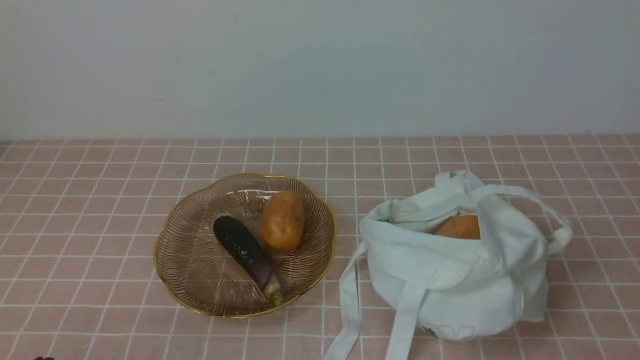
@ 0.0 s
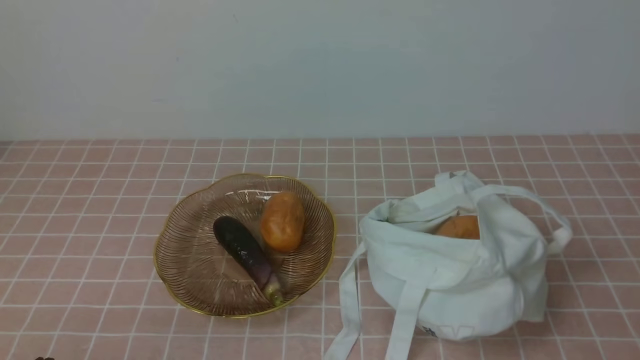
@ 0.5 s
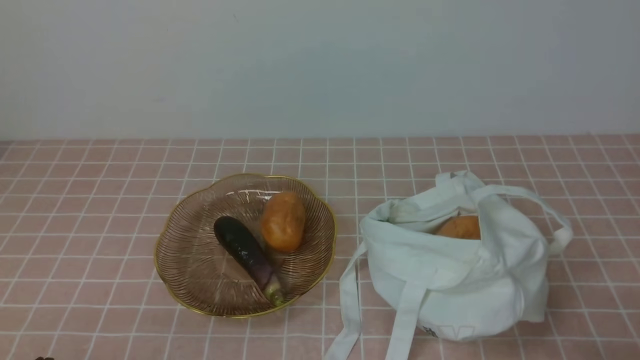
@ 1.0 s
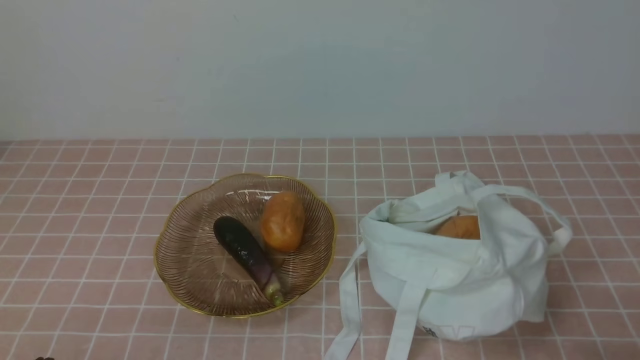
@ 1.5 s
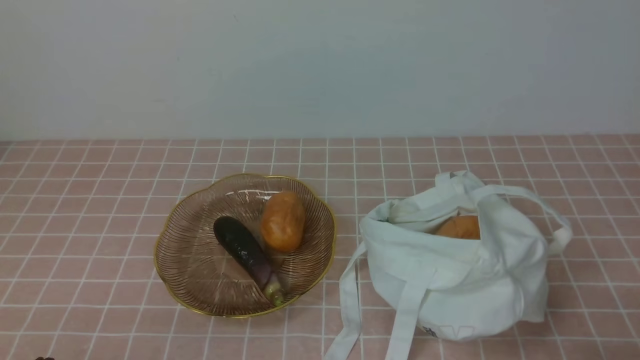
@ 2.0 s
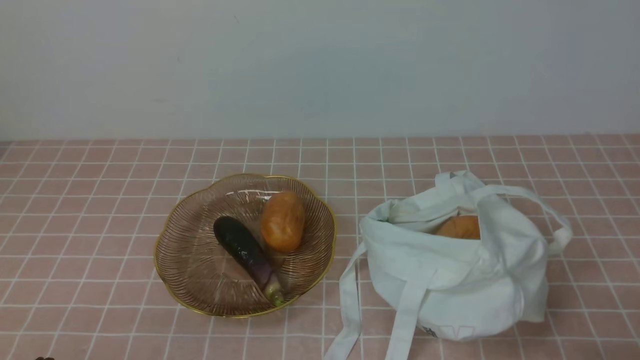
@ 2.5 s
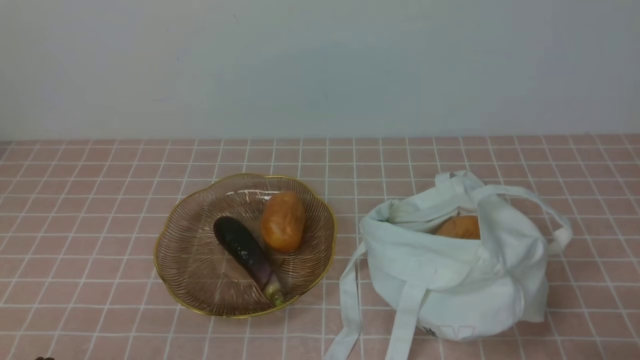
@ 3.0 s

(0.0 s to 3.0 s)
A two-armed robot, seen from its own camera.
Task of the whole recording: take vegetables from bag on pink coffee tablecloth place on plate.
1.5 s - 3.0 s: Both grippers stay put.
